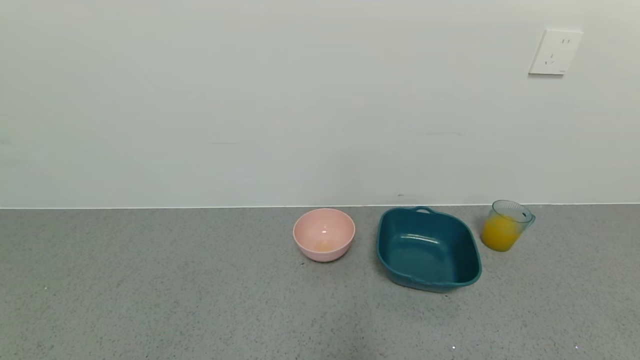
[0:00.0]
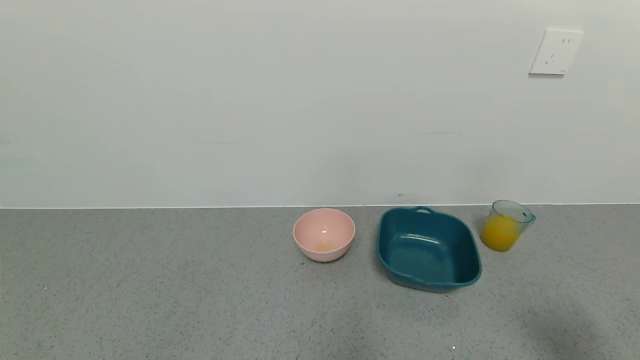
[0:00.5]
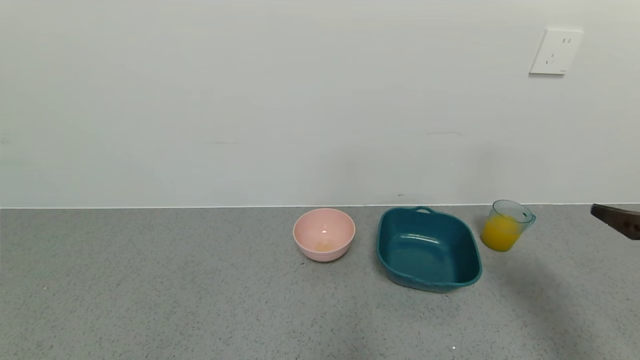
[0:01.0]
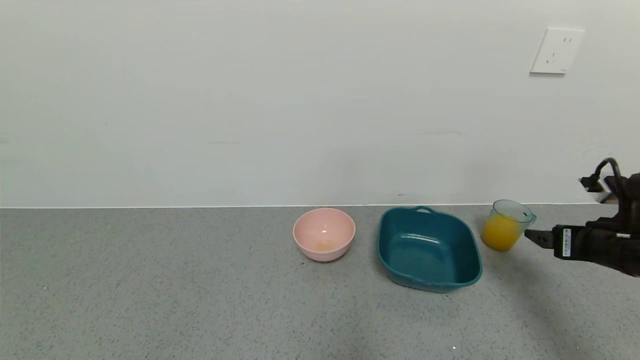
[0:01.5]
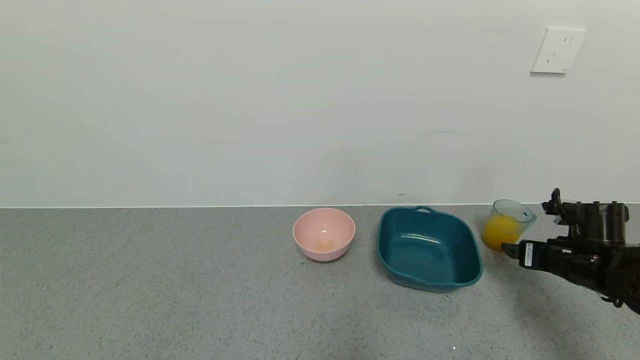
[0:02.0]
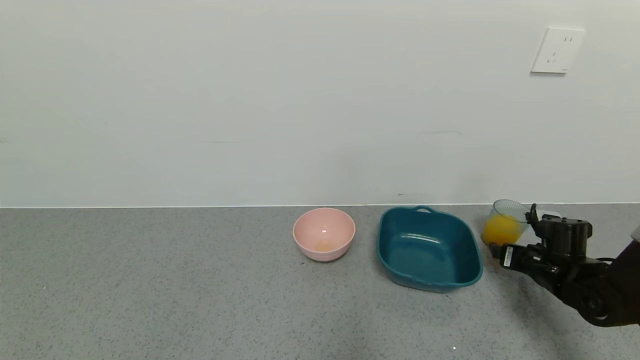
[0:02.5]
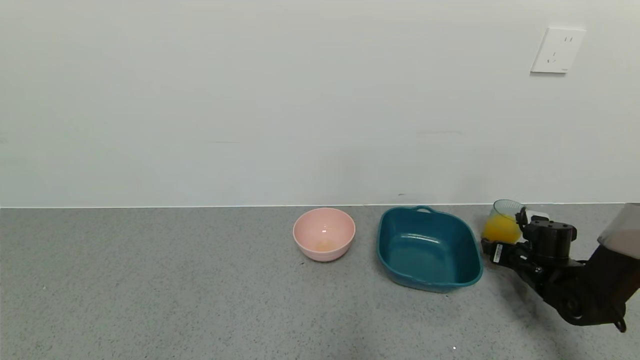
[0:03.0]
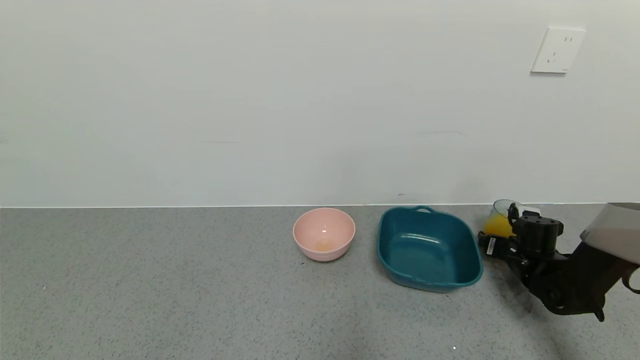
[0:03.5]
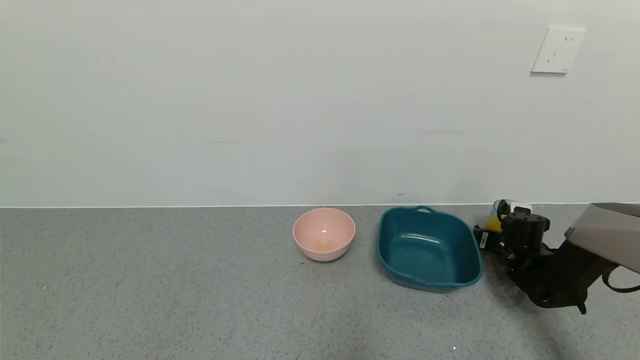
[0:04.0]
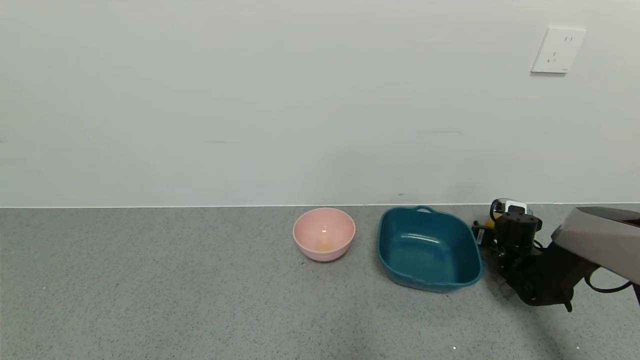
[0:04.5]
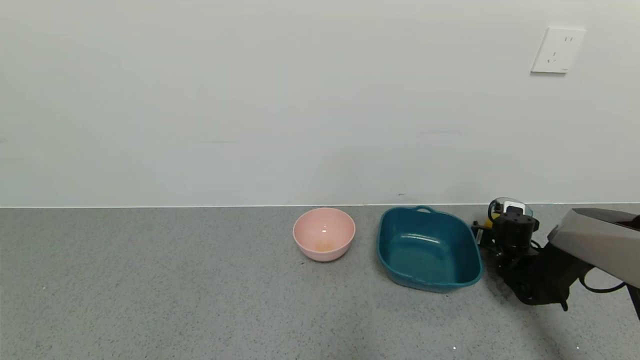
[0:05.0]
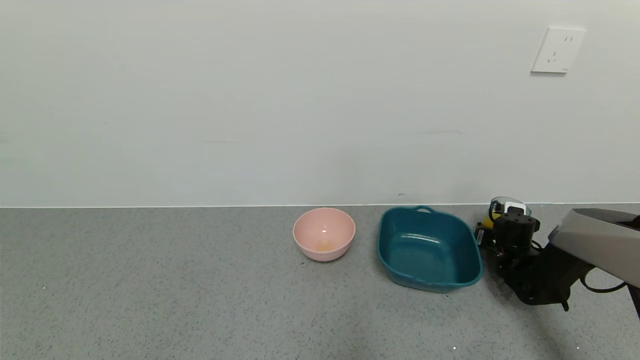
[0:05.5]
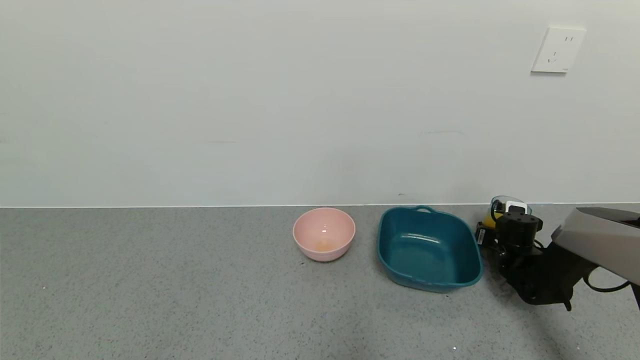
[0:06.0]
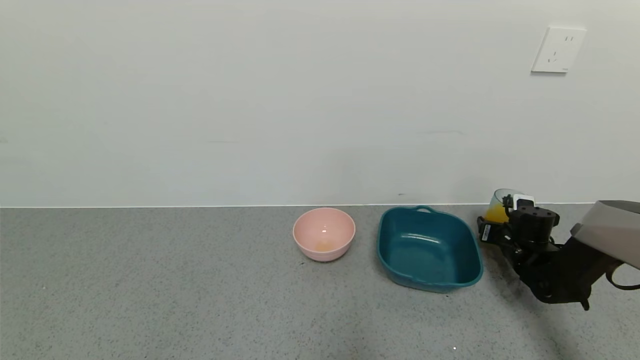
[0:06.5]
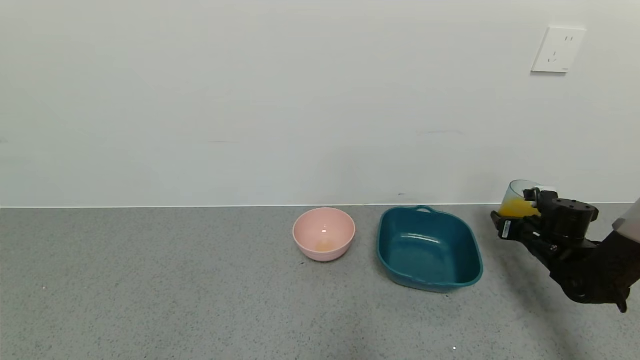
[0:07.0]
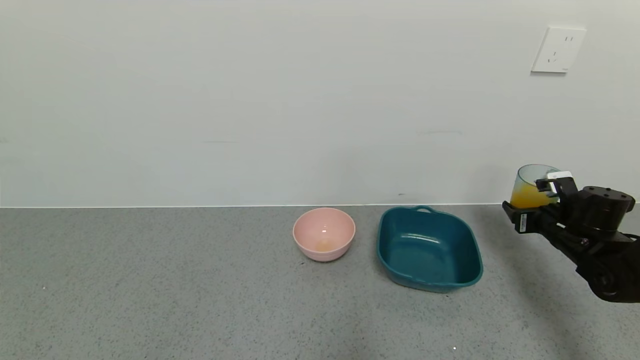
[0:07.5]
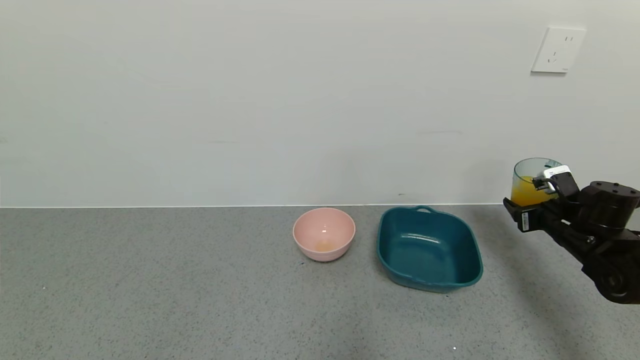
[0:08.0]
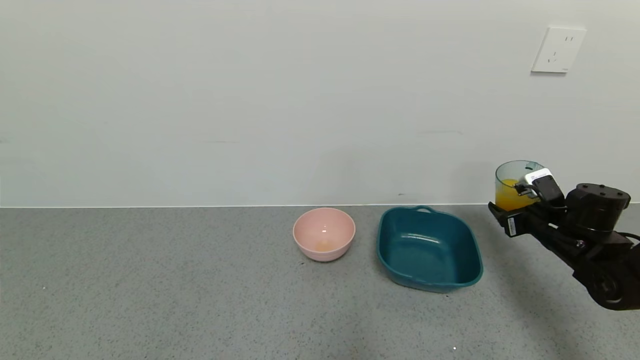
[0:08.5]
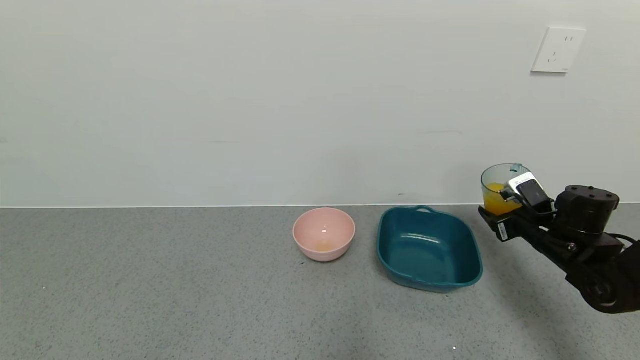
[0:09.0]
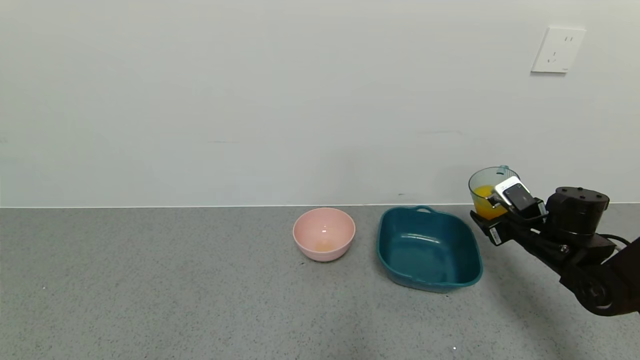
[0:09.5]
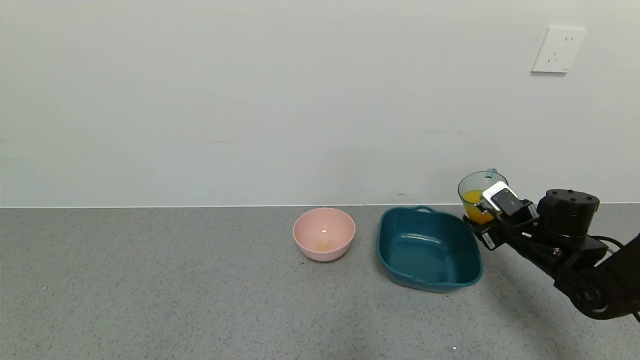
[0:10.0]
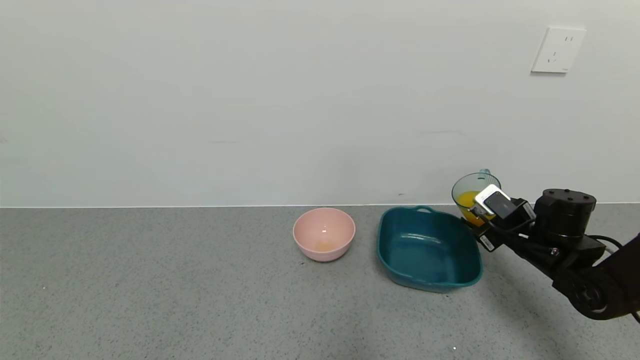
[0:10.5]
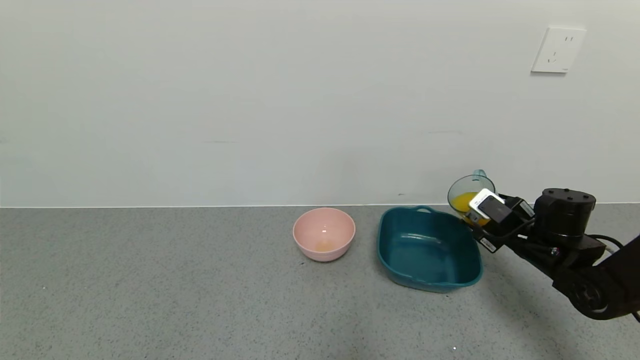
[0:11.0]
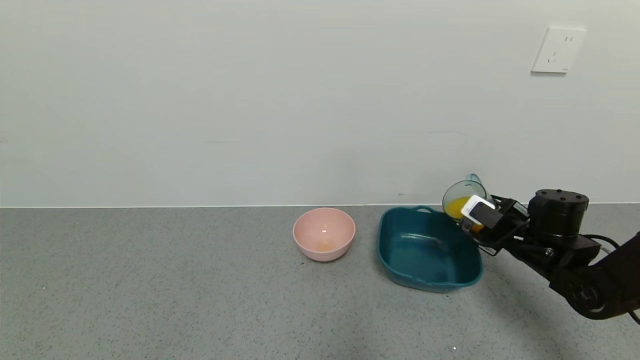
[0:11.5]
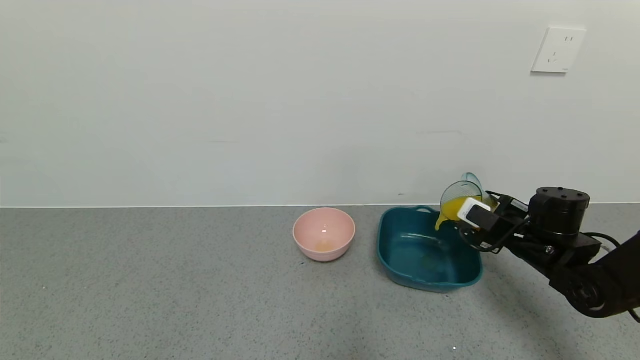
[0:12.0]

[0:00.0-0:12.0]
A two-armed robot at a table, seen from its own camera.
Task of the whole recording: use a gripper to pick up the cup and pour the liquid into a bowl or tray.
Step, 0:00.0 to 0:05.0: Pick up blue cup filled with orange juice with right gripper.
0:00.0 to 0:02.0: The right gripper travels forward by approximately 35 cm.
0:02.0 to 0:04.0: The right gripper shifts roughly 15 cm forward and downward.
0:04.0 to 0:06.0: The right gripper closes up.
0:06.0 to 0:08.0: The right gripper goes some 15 cm upward and backward.
0:08.0 to 0:10.0: The right gripper goes some 5 cm to the left.

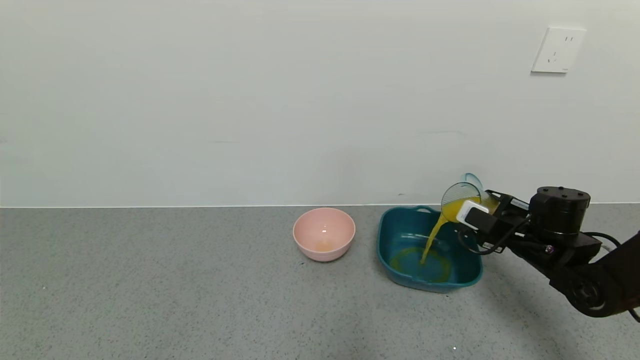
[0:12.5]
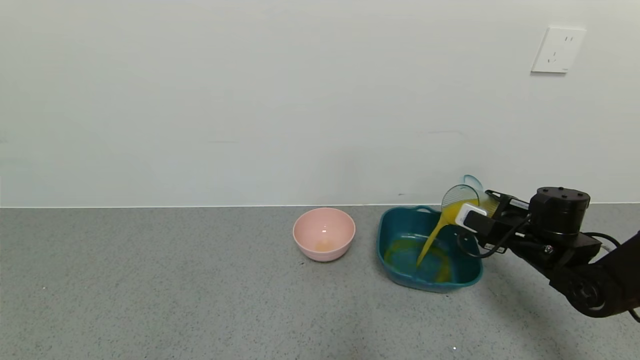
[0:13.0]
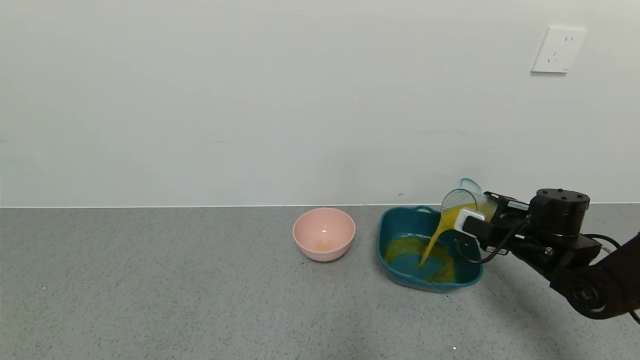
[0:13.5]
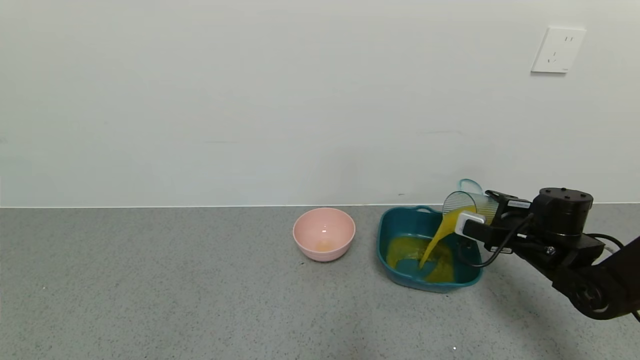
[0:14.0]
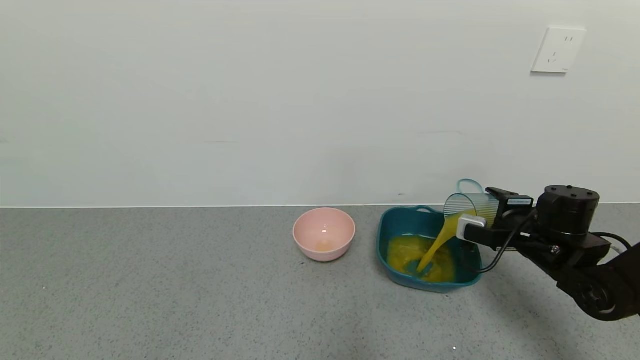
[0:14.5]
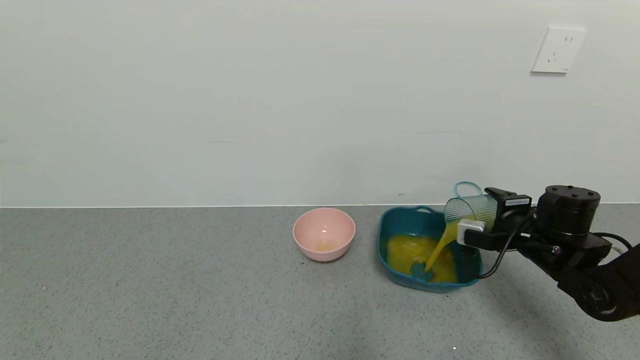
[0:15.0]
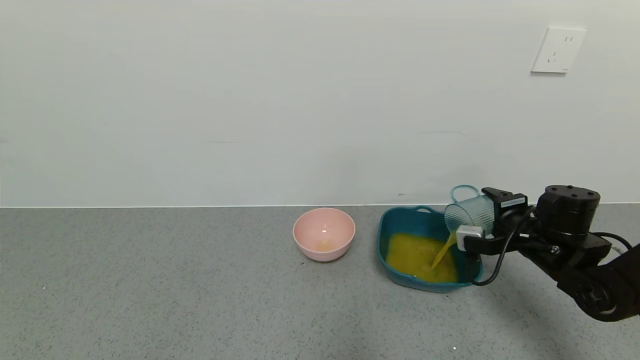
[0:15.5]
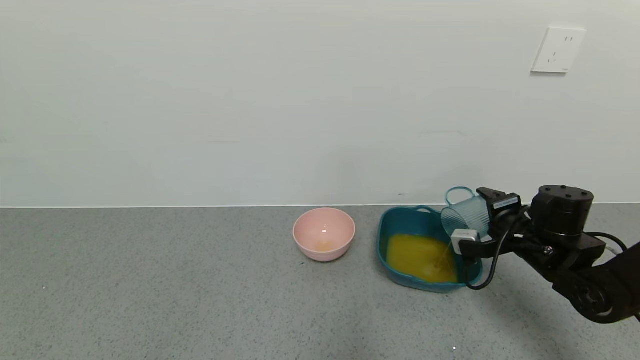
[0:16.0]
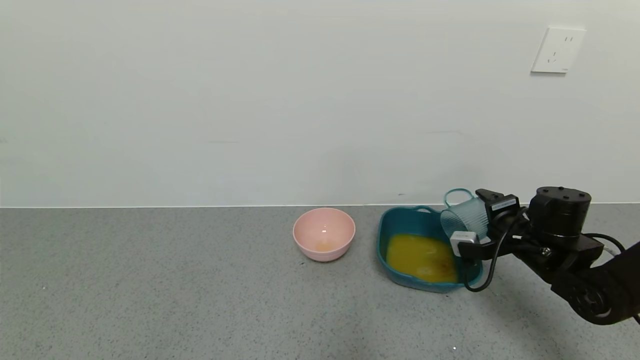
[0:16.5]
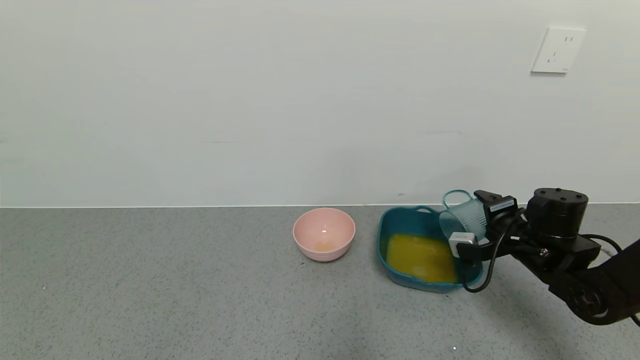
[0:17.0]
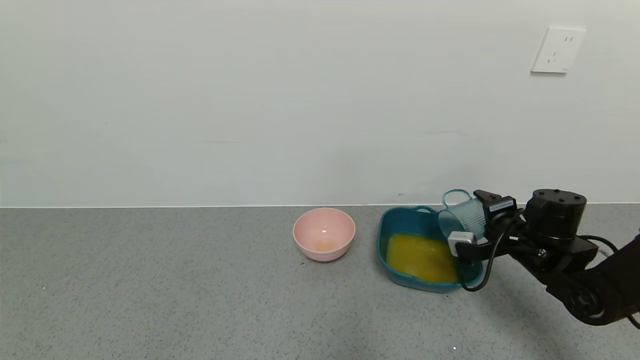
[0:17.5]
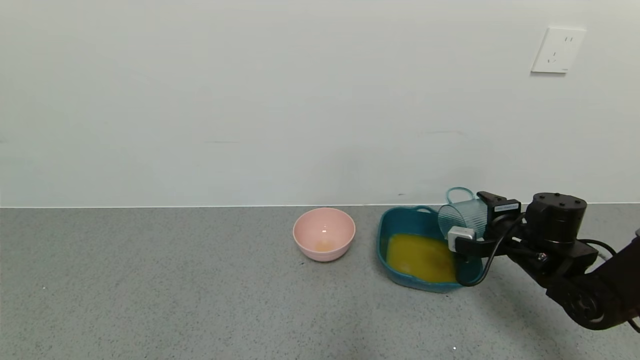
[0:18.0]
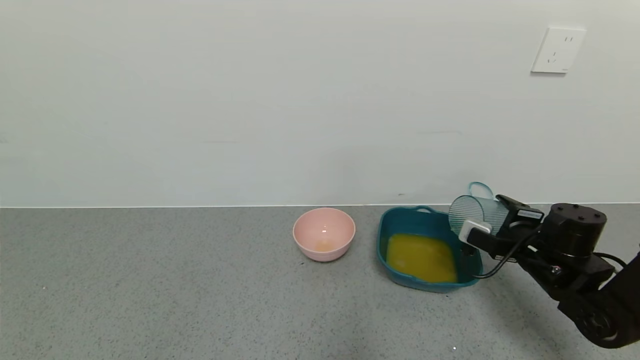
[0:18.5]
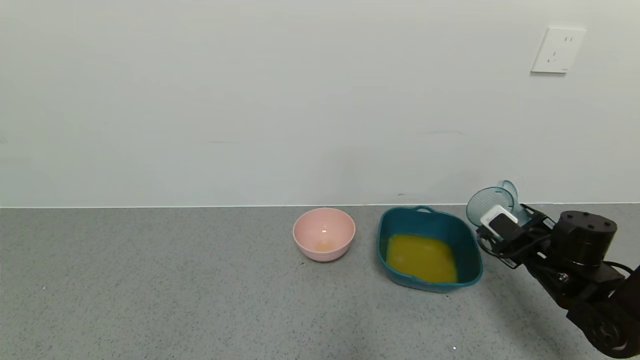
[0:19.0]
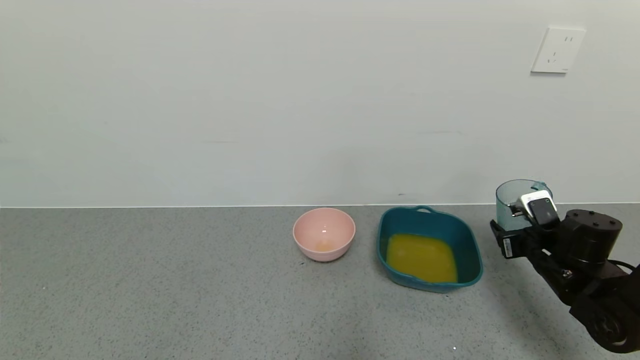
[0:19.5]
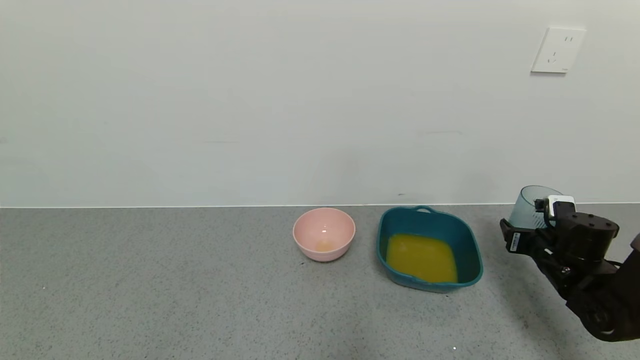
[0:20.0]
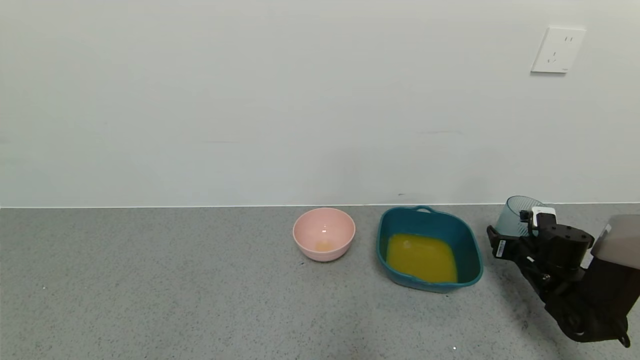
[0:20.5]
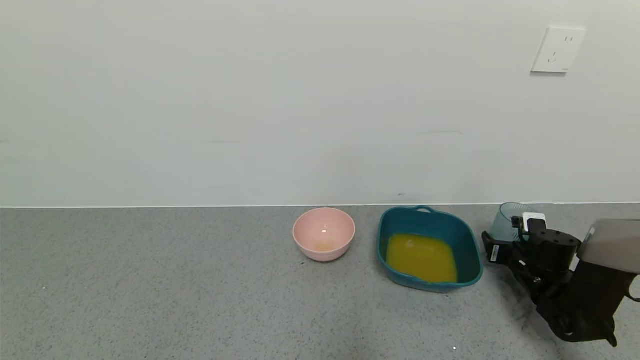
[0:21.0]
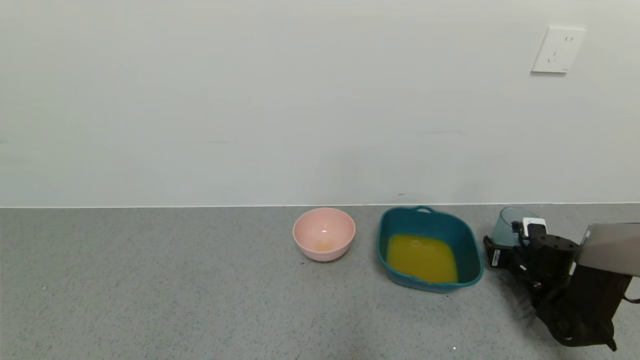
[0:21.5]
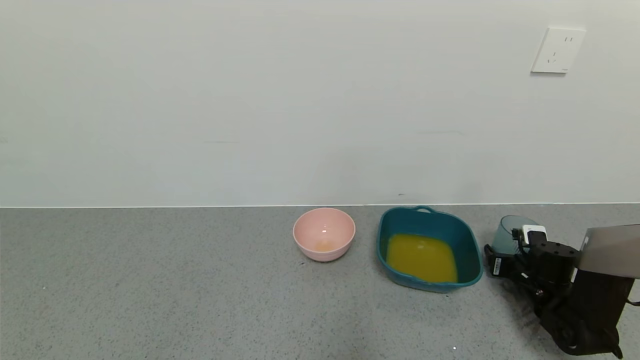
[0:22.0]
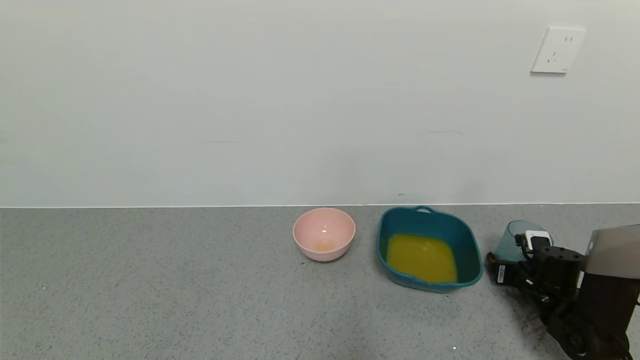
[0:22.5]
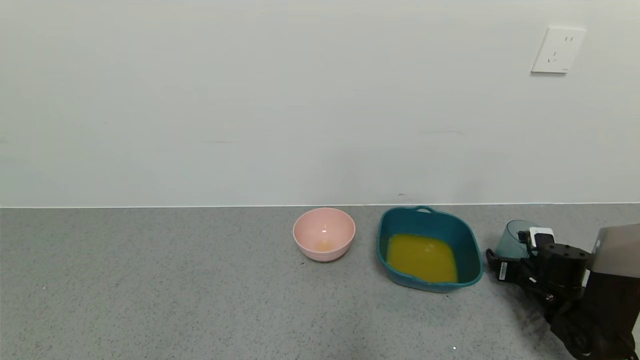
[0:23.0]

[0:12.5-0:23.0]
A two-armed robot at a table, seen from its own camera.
Task of the whole recording: use a gripper to pick up the cup and pour the liquid into a bowl or tray.
Step, 0:12.5 to 0:16.0: Pour the orange juice into the blue basin with right gripper.
Step, 0:16.5 to 0:22.5: Place blue cup with orange juice on the table with right gripper.
0:19.0 to 0:21.0: The right gripper is displaced downward and forward by roughly 10 cm.
0:21.0 to 0:23.0: The right gripper opens up.
